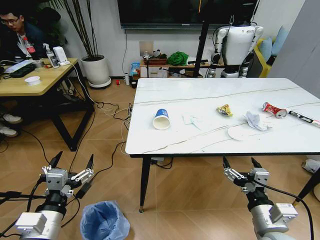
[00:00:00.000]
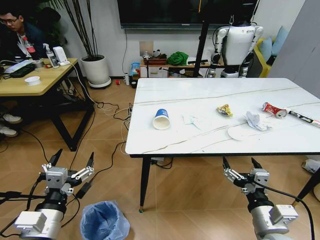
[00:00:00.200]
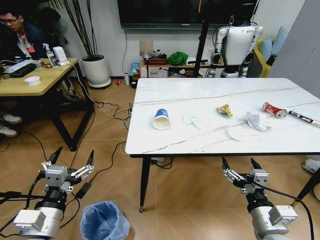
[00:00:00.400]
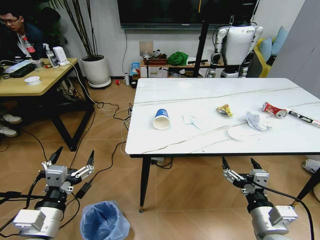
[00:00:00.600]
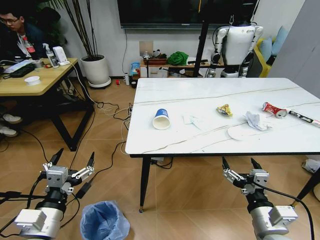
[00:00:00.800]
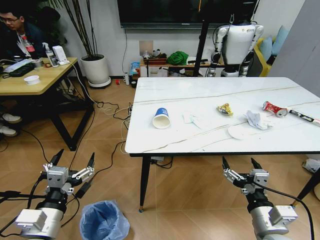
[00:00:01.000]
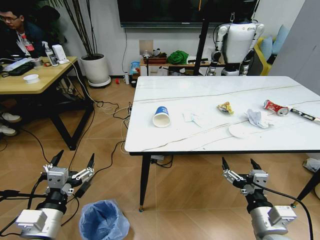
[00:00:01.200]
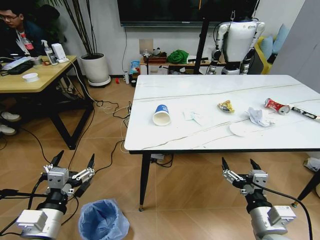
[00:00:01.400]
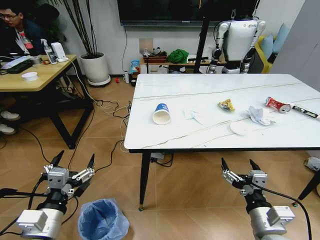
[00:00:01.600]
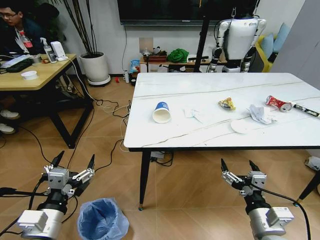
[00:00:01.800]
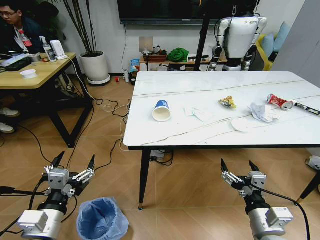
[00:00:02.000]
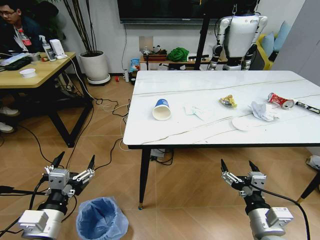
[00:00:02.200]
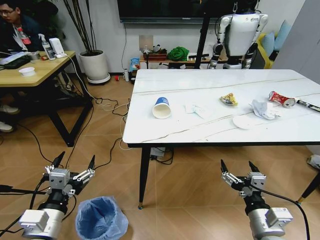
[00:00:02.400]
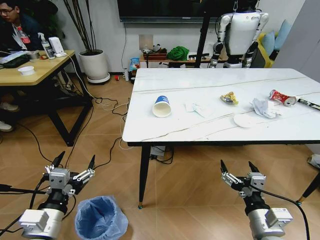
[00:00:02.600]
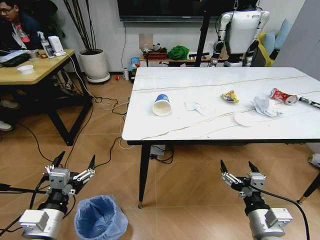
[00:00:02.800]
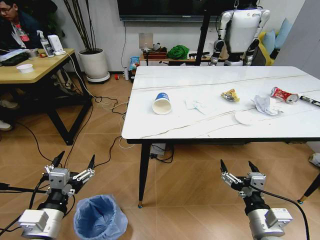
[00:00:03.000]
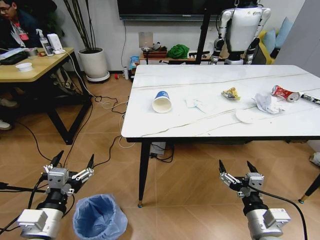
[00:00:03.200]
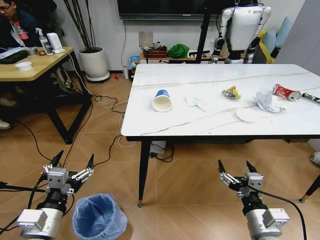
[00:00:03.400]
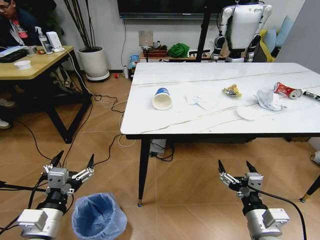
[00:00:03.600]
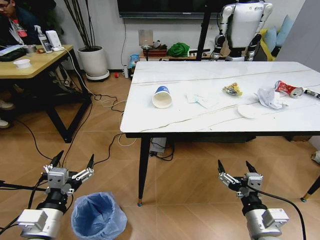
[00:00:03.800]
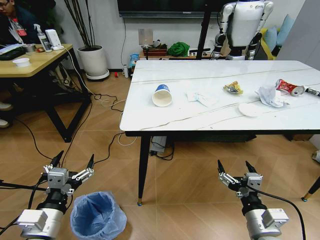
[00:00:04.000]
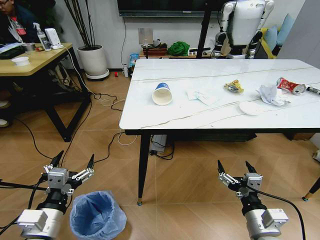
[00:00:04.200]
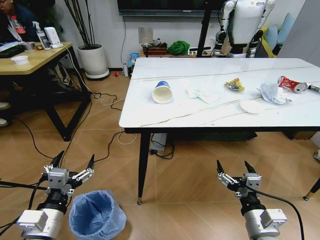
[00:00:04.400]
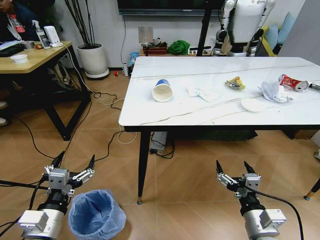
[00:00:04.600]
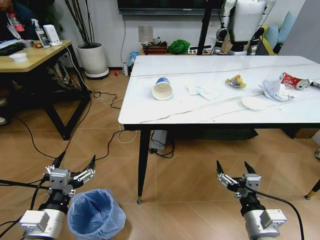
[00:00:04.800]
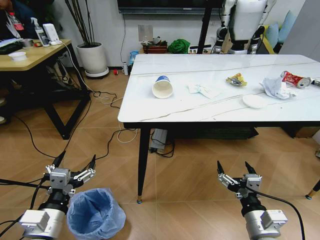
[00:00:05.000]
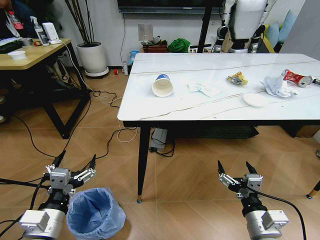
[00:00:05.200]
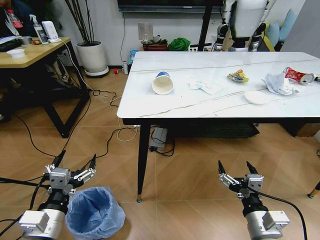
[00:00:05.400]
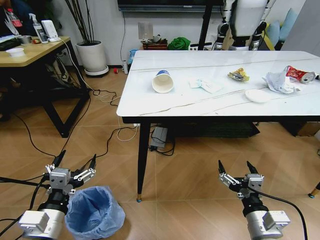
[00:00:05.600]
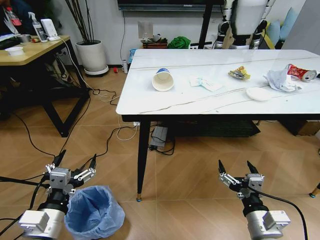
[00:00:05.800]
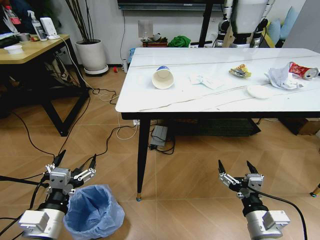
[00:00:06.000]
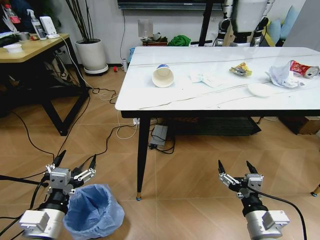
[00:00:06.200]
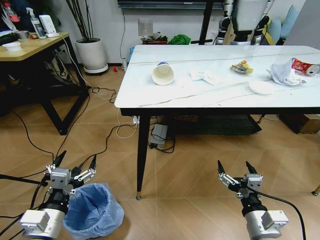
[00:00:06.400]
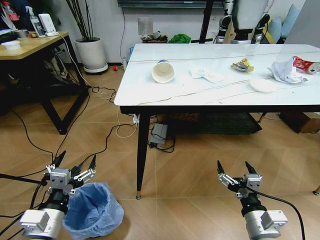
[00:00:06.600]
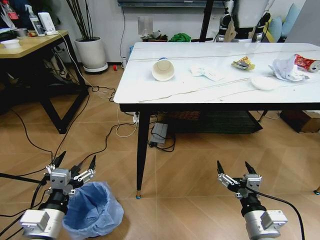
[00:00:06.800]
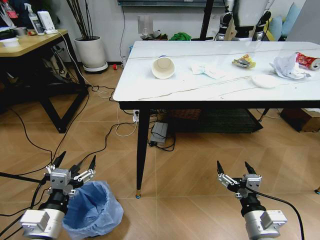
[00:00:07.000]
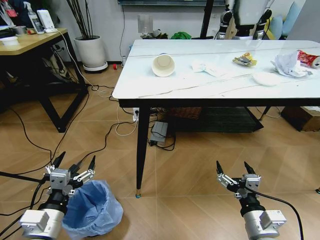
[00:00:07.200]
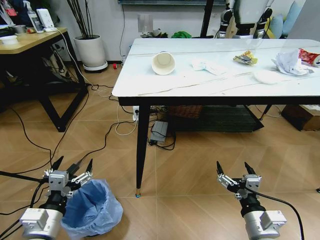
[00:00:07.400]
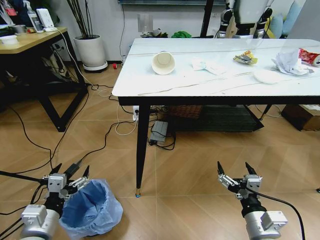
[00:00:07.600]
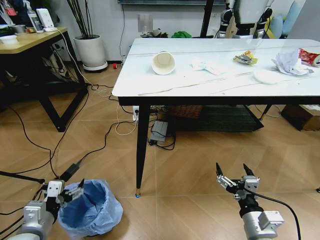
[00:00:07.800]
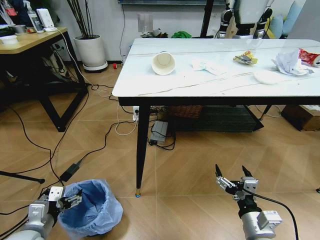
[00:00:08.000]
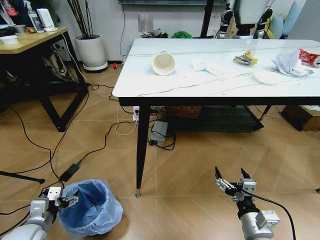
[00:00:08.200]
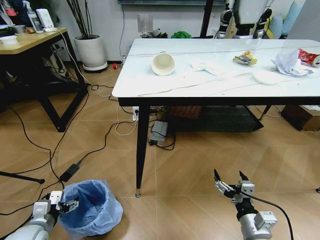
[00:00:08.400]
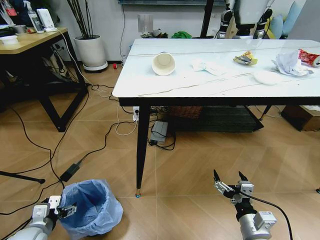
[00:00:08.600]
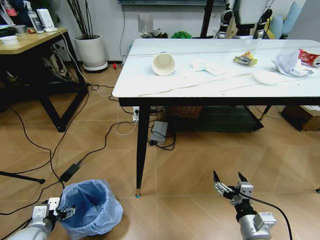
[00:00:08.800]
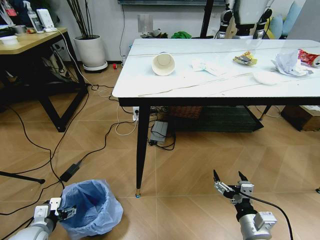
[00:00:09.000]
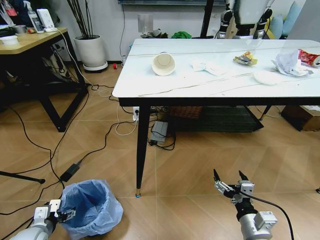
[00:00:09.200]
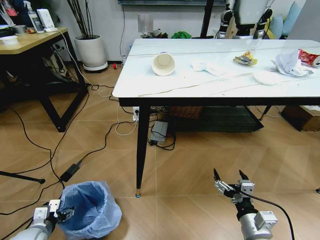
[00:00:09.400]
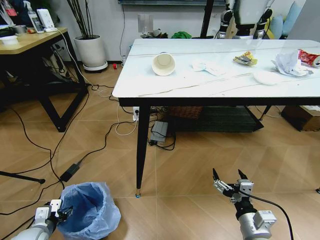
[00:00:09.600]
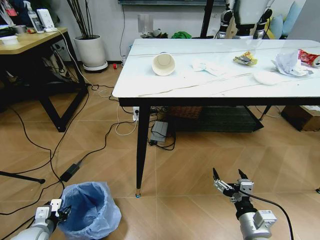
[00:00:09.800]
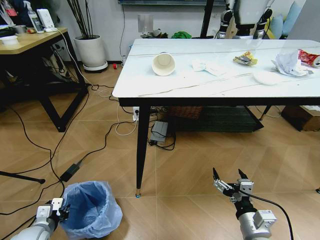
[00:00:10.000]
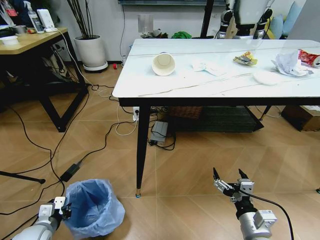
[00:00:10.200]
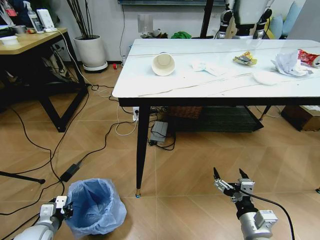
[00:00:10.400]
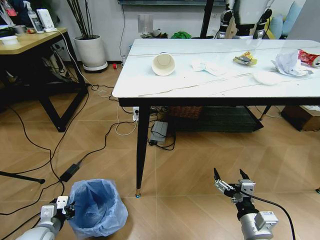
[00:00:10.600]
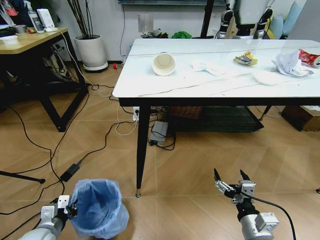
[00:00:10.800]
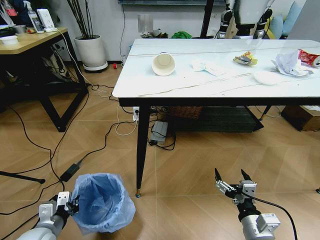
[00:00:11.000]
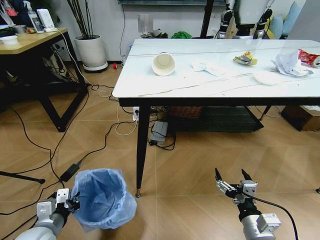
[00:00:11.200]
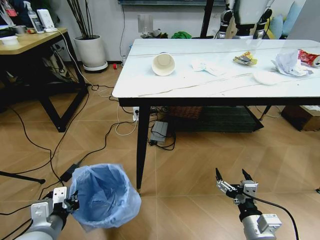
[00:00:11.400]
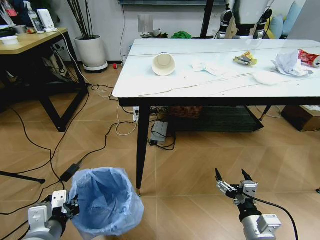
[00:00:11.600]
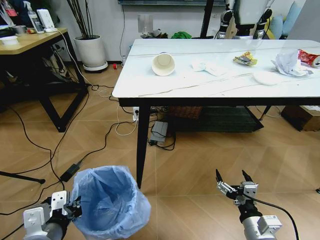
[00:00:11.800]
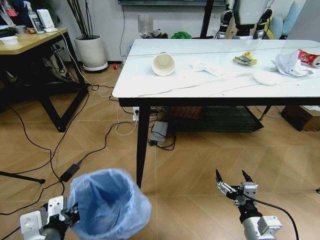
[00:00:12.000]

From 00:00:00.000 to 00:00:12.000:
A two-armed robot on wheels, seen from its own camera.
Task of the whole recording: Pick up the trash bin and place the trash from the table into it.
From 00:00:07.600 to 00:00:09.000: The left gripper is displaced downward, to the left and forward by about 15 cm.
From 00:00:09.000 to 00:00:10.400: The left gripper closes.
From 00:00:10.400 to 00:00:12.000: The left gripper shifts approximately 25 cm upward, to the right and backward.

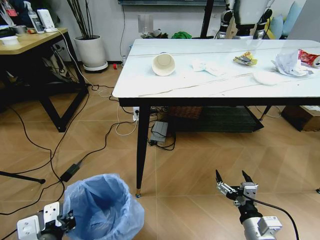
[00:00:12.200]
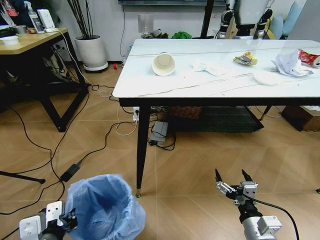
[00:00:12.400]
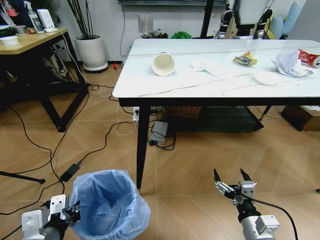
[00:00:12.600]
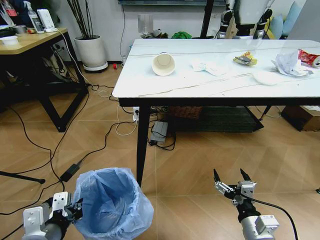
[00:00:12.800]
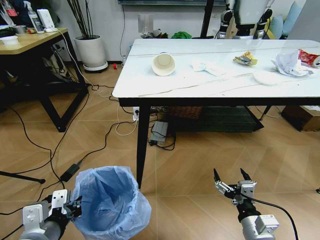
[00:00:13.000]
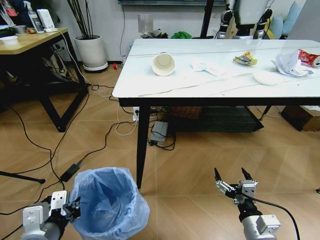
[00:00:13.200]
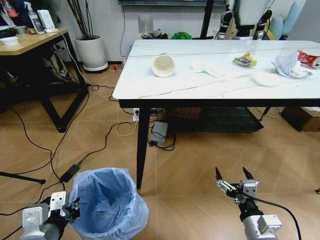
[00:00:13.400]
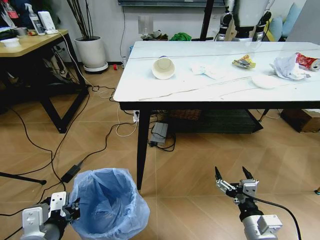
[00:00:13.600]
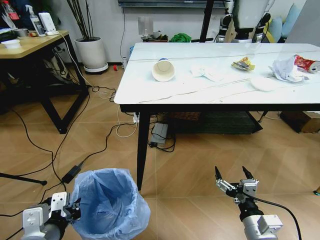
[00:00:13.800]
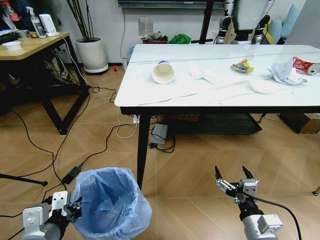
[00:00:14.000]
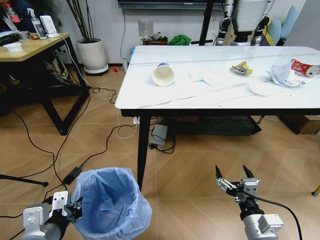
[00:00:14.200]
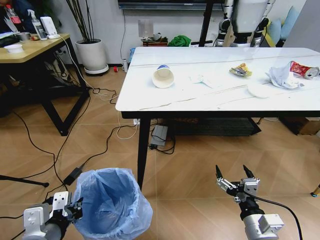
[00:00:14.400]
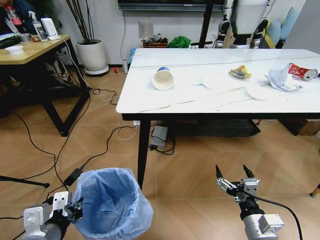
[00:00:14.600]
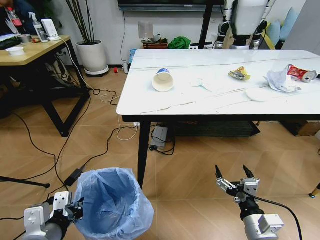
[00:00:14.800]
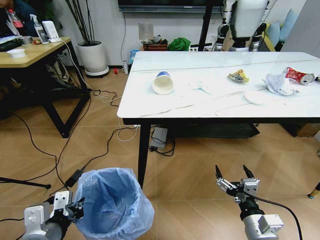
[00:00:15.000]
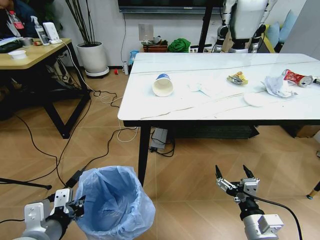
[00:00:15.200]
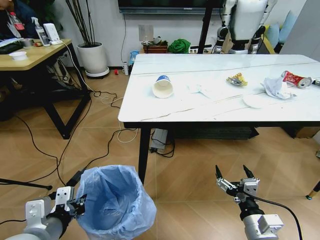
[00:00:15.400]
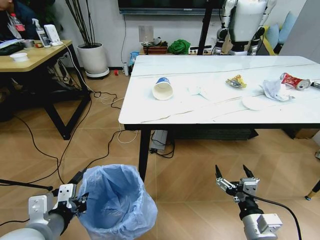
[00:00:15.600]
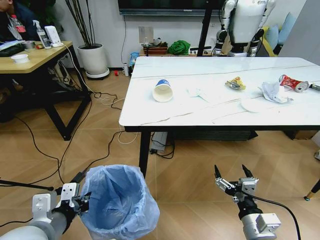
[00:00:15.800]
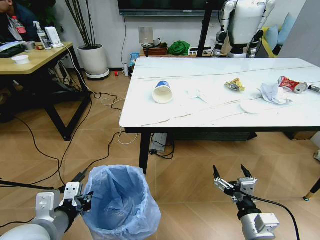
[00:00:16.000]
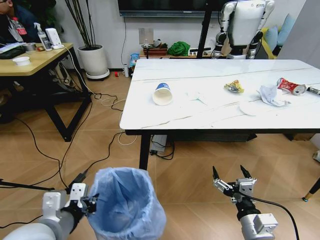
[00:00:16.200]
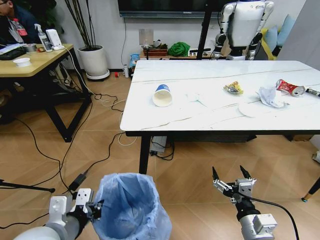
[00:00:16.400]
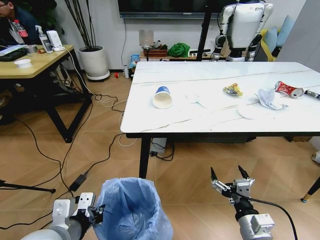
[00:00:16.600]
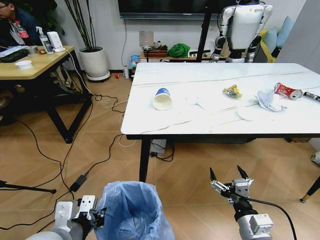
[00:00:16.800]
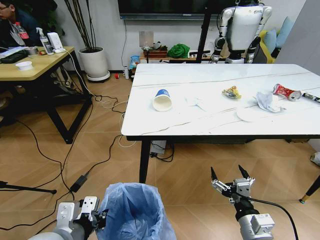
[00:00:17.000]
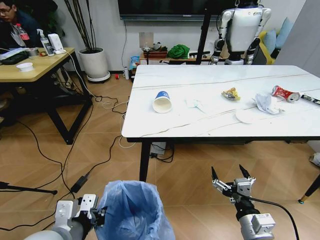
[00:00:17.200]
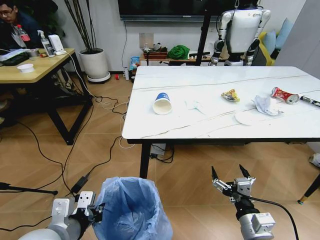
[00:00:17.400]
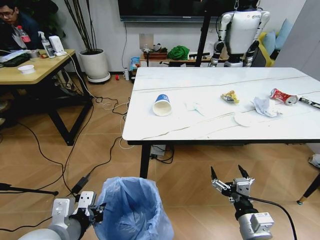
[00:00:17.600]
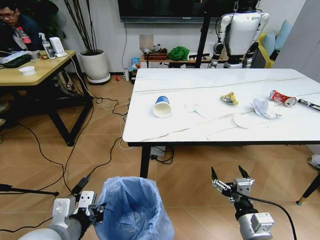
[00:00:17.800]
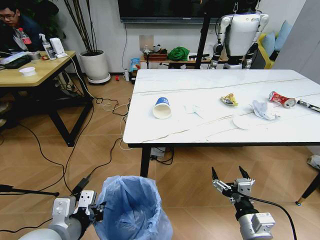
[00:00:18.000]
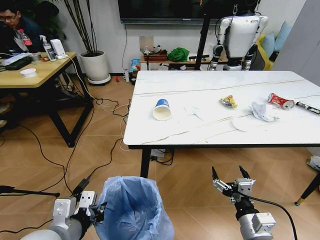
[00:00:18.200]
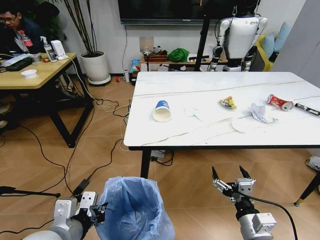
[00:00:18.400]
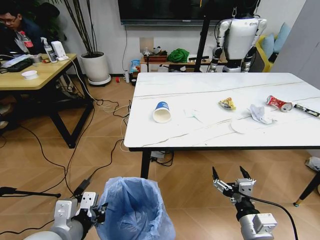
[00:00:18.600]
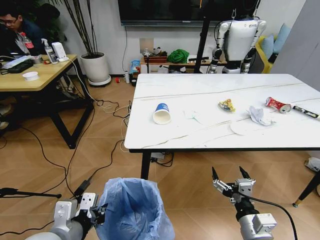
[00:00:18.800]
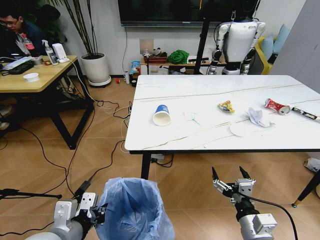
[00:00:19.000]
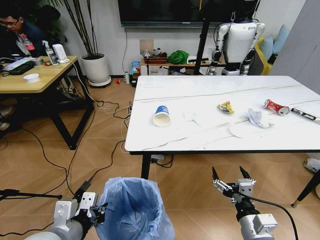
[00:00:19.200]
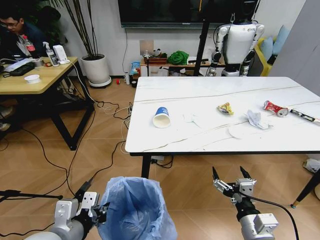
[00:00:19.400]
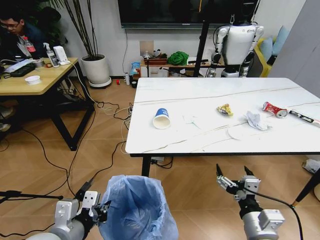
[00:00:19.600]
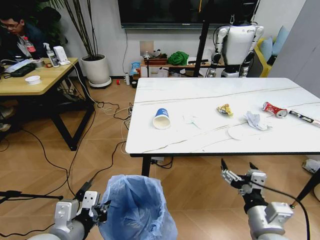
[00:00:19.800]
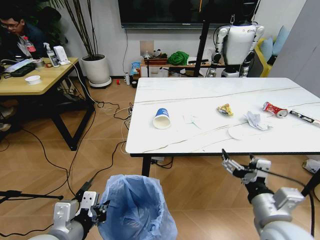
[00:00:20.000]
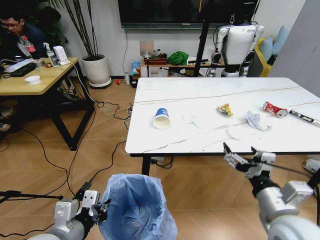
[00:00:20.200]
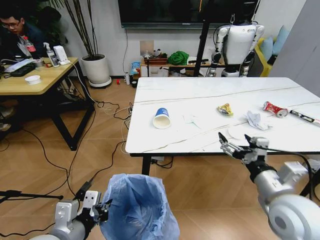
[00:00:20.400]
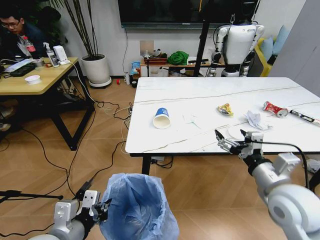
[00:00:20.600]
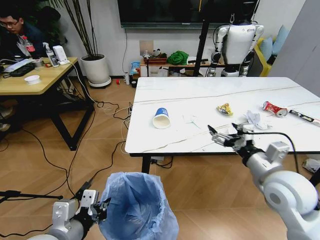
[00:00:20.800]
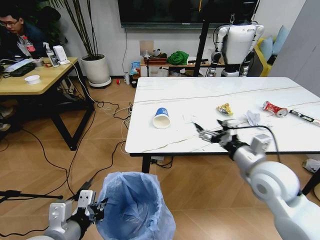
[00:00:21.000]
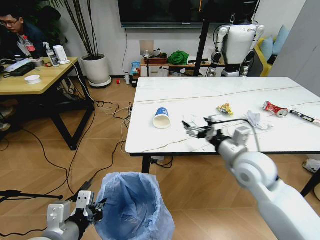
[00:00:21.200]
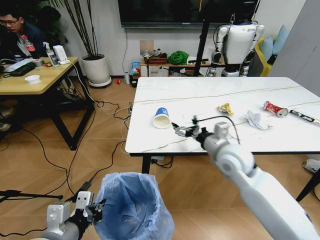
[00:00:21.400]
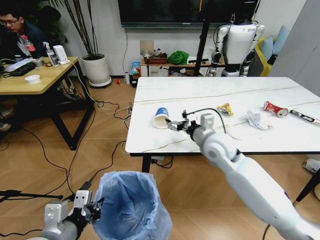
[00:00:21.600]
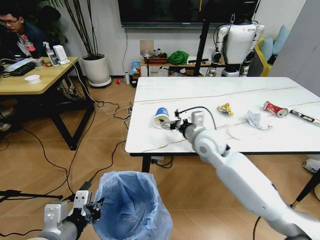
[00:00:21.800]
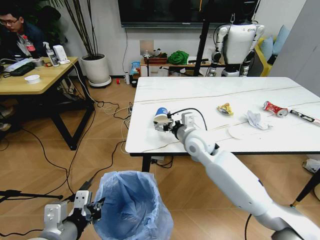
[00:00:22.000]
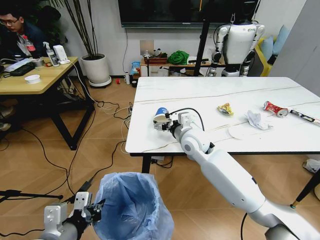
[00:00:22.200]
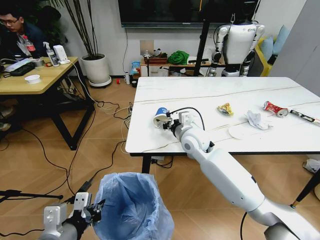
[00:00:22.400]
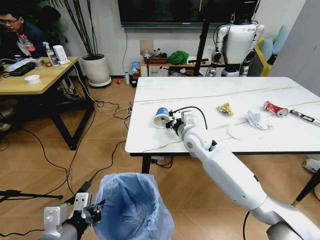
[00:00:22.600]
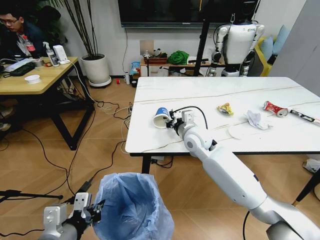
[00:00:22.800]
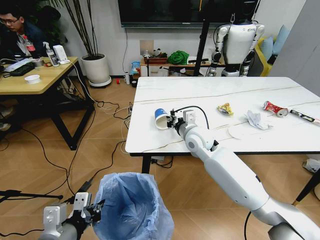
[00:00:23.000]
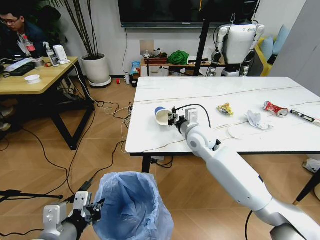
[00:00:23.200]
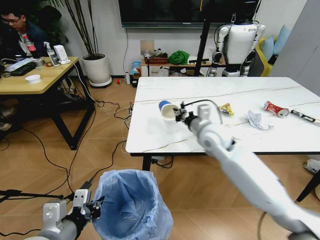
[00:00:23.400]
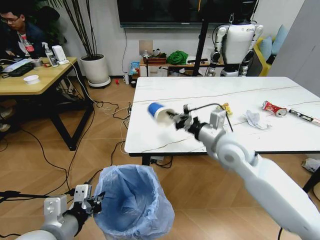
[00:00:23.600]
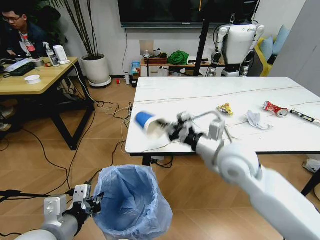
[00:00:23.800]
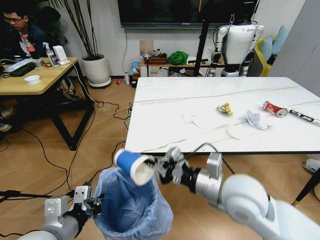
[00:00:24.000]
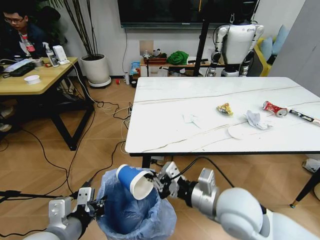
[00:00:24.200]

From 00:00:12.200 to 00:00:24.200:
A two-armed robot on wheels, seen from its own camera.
Task of the whole recording: Pick up the trash bin and place the trash from the table into it.
From 00:00:18.200 to 00:00:19.800: The right gripper is displaced upward by about 5 cm.
From 00:00:19.800 to 00:00:21.200: The right gripper heads forward and upward, covering approximately 20 cm.
From 00:00:21.200 to 00:00:22.600: The right gripper shifts roughly 20 cm forward and to the left, and closes up.
From 00:00:22.600 to 00:00:24.200: The right gripper travels backward by about 25 cm, and closes up.
